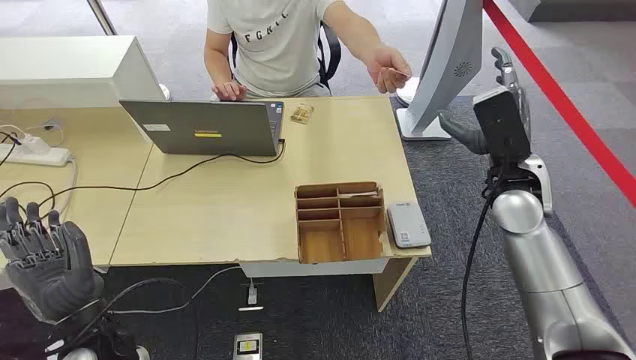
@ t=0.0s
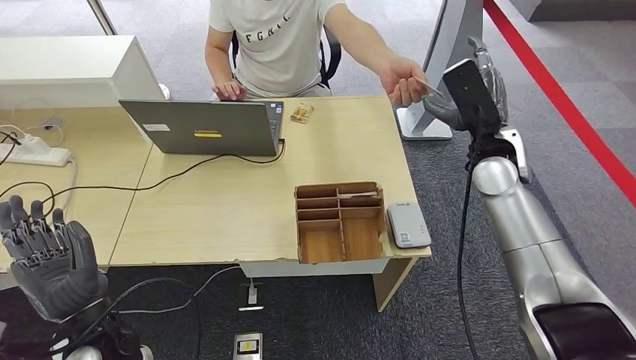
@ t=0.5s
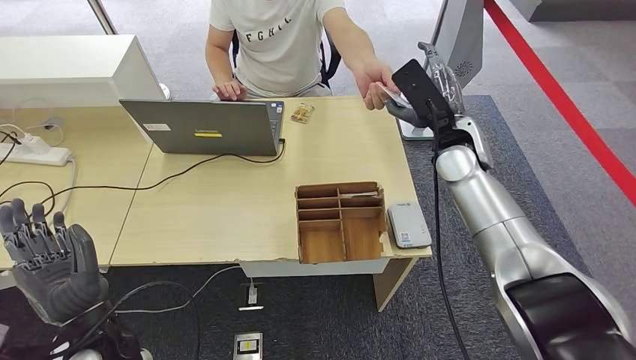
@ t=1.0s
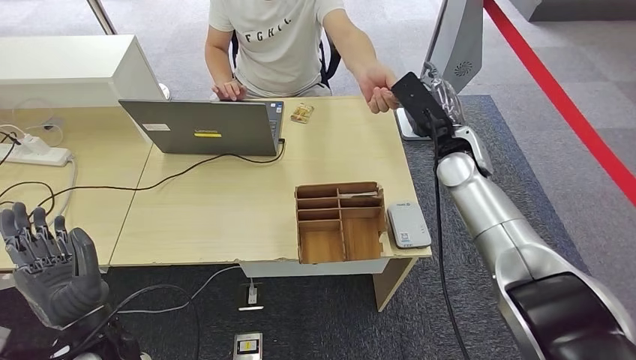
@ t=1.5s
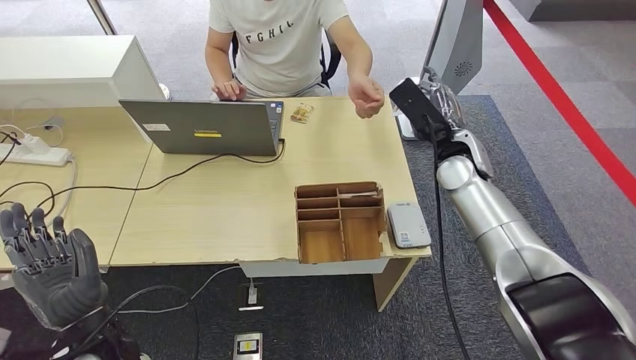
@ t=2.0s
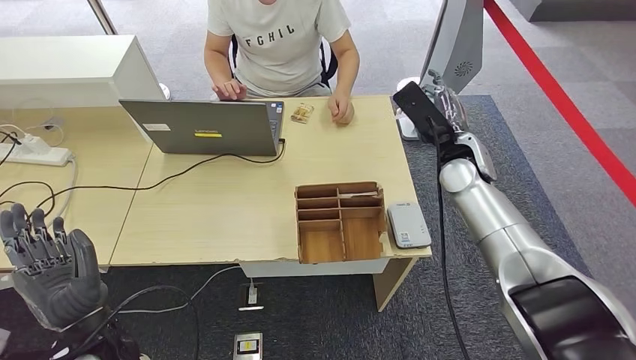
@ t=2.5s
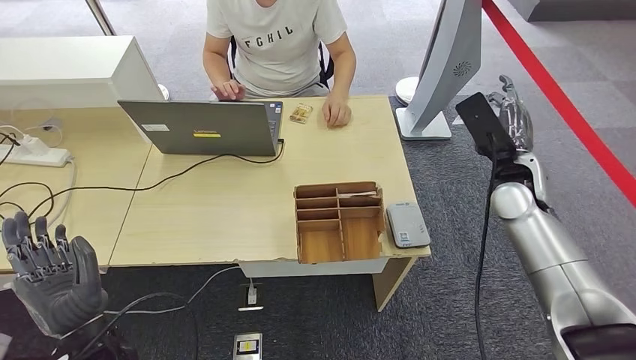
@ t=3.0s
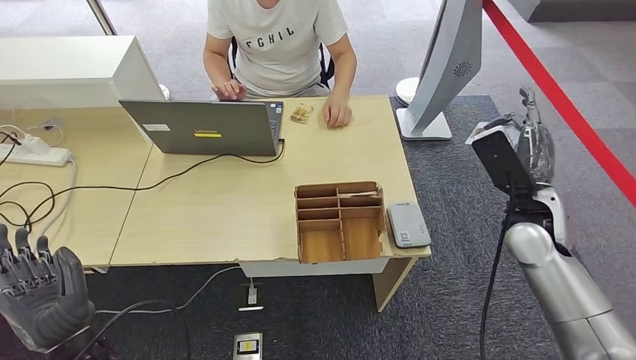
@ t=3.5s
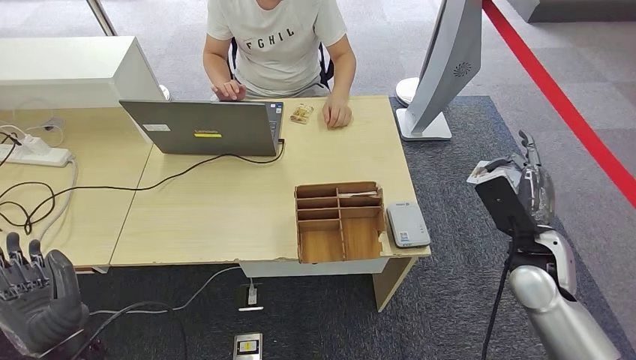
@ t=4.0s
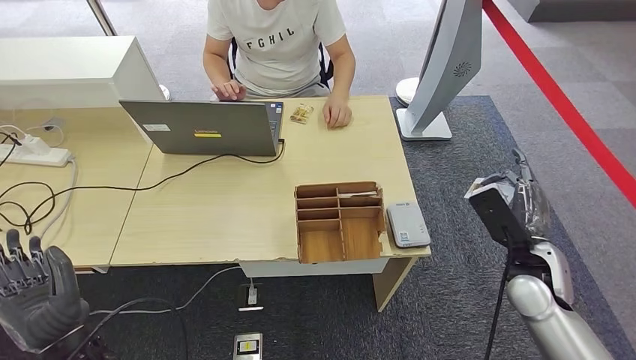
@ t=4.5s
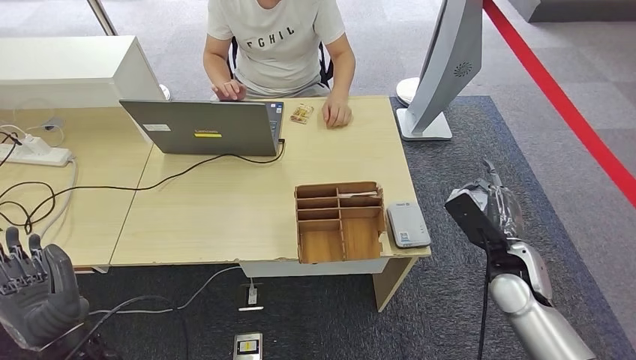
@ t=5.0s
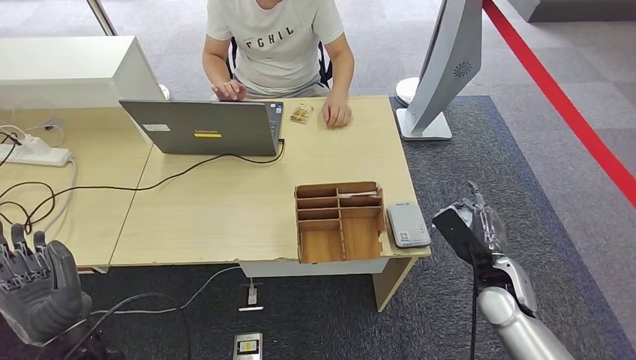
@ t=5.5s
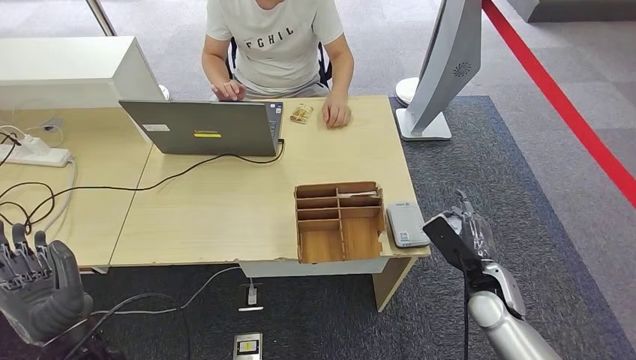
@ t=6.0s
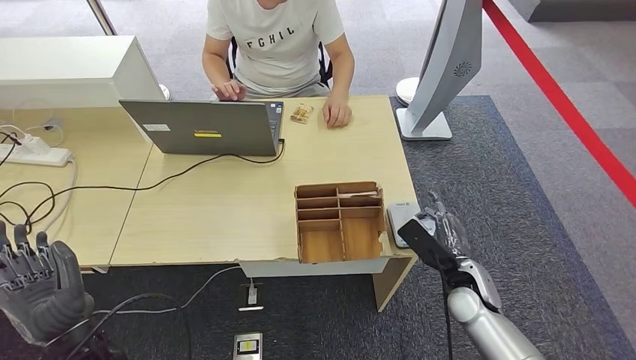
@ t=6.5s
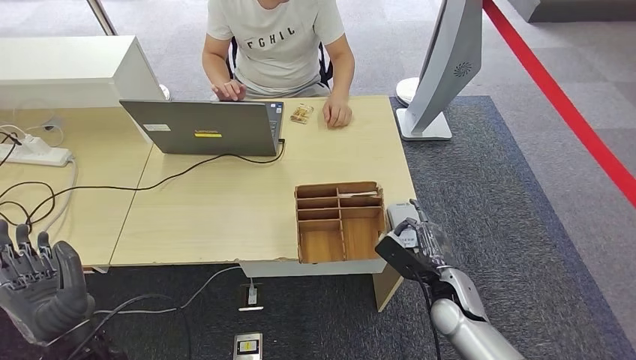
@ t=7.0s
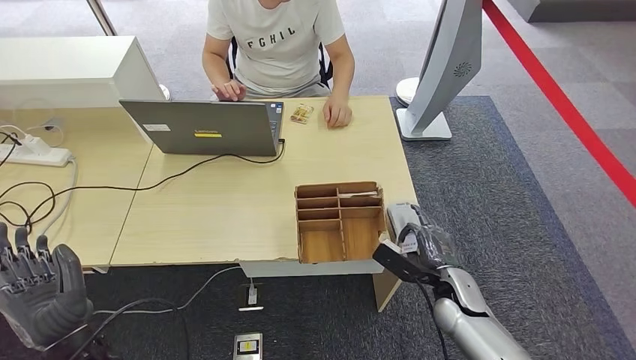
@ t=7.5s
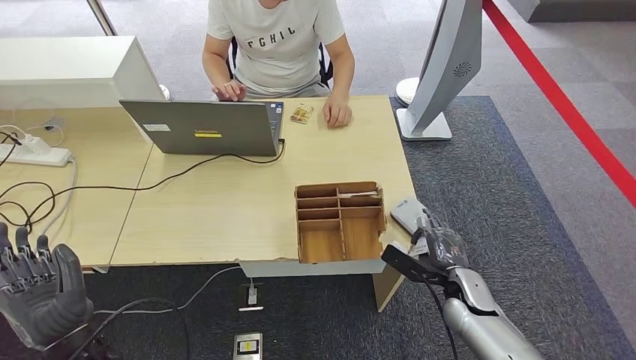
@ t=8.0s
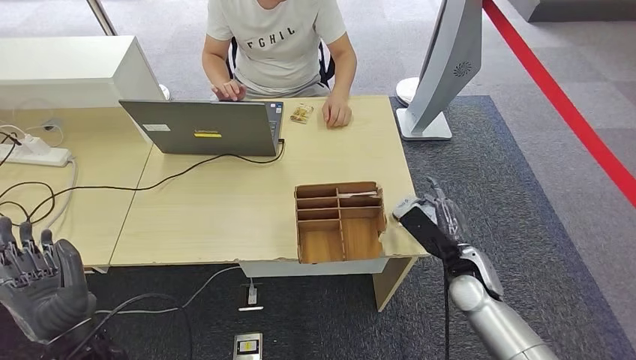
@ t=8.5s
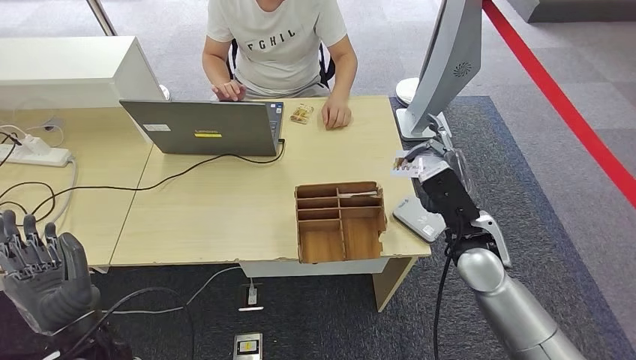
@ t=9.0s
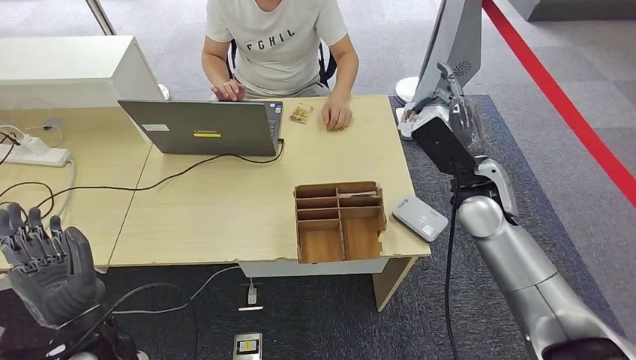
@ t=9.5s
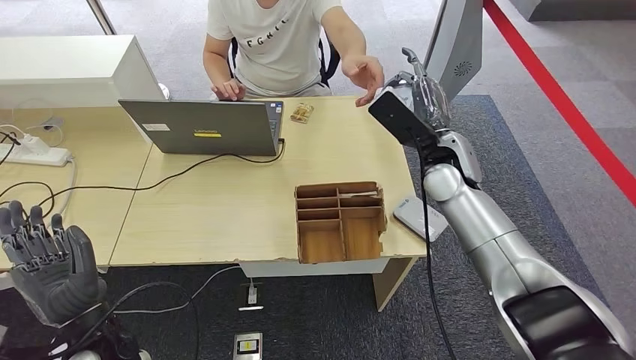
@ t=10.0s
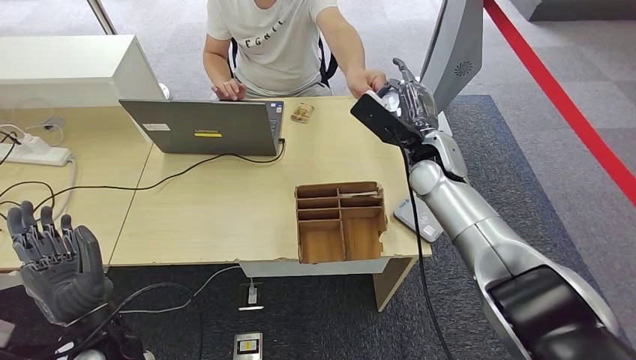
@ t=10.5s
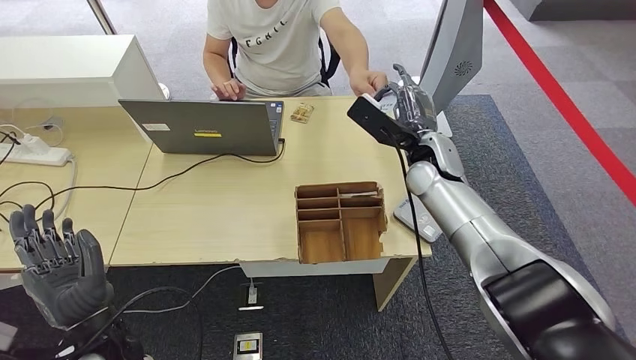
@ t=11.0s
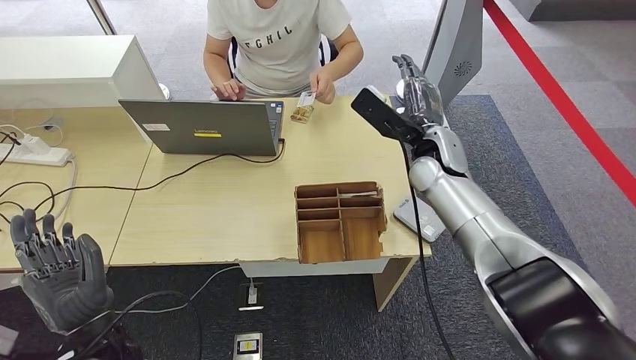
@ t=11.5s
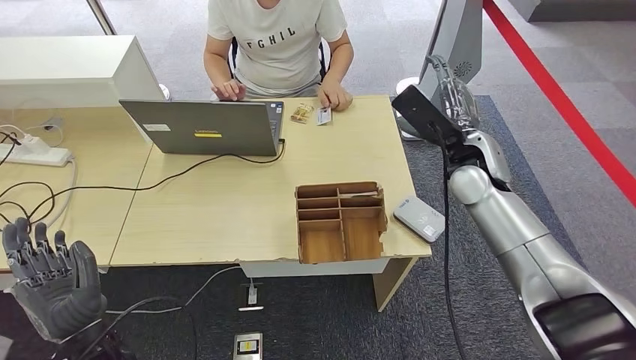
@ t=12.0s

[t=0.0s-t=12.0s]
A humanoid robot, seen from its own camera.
Step, t=0.0s to t=2.0s: Take the ID card from the person's hand.
Step, t=2.5s to t=9.0s: Place the ID card on the card reader.
t=2.0s to t=4.0s: The right hand travels backward, to the right and downward by approximately 20 cm.
t=4.0s to t=6.0s: The right hand moves downward, some 10 cm.
t=6.0s to t=8.0s: The right hand moves roughly 5 cm.
t=8.0s to t=10.0s: The right hand travels upward and forward by some 25 cm.
t=10.0s to t=12.0s: There are only small adjustments of the hands.

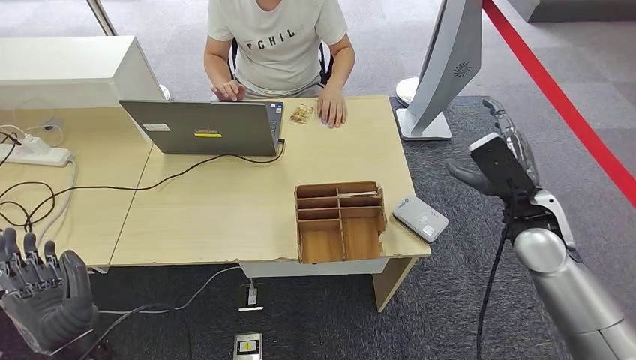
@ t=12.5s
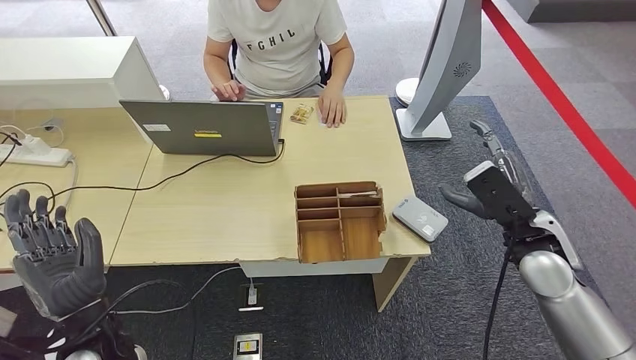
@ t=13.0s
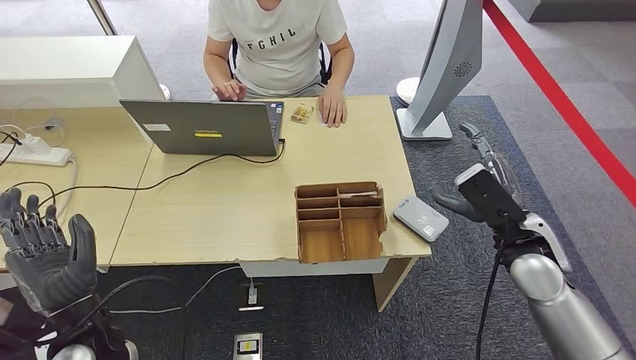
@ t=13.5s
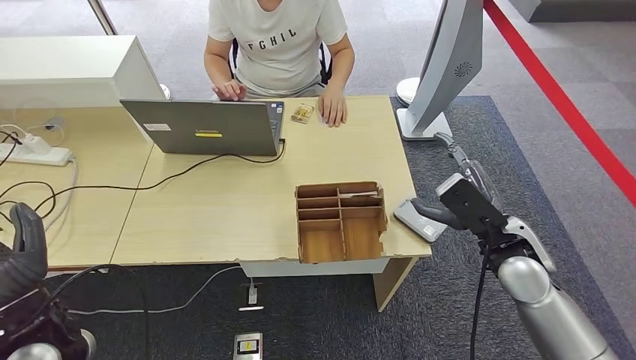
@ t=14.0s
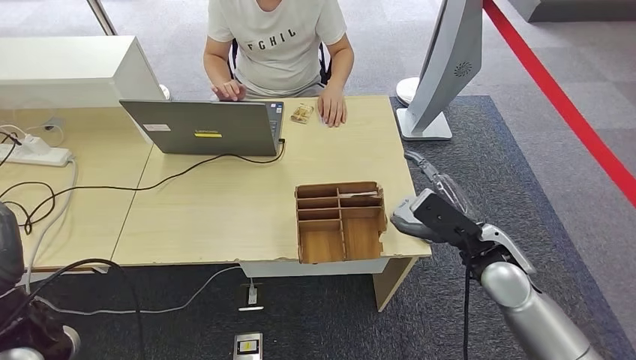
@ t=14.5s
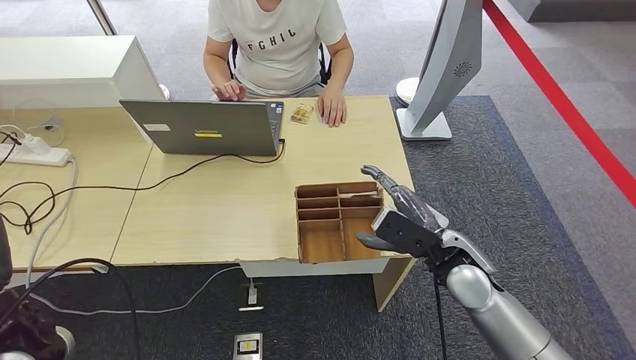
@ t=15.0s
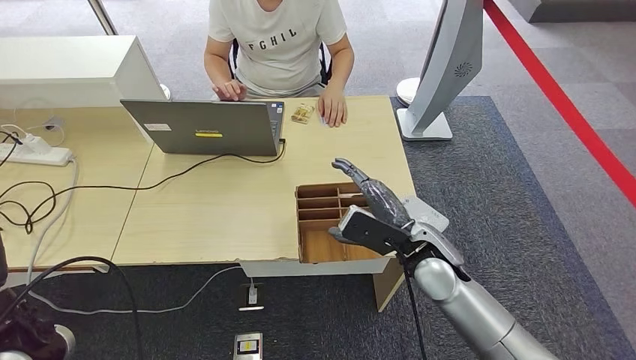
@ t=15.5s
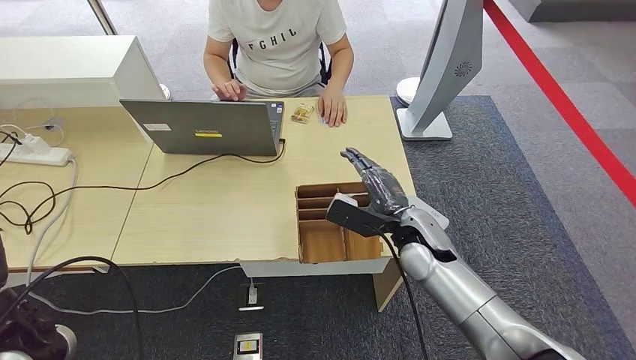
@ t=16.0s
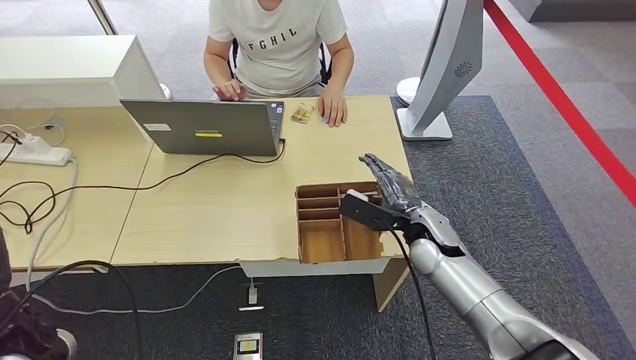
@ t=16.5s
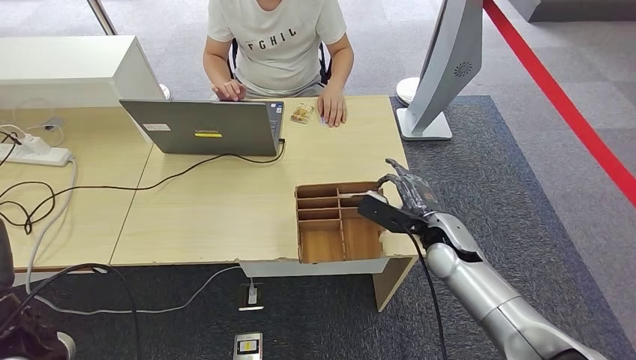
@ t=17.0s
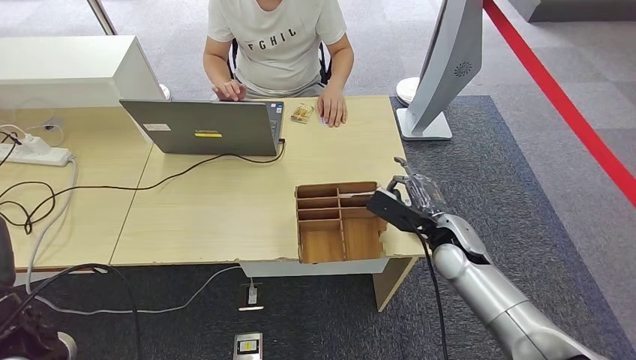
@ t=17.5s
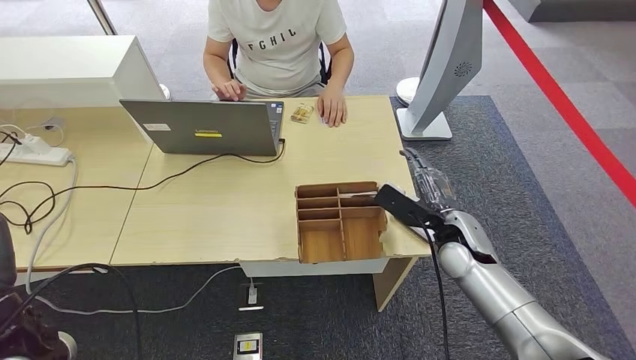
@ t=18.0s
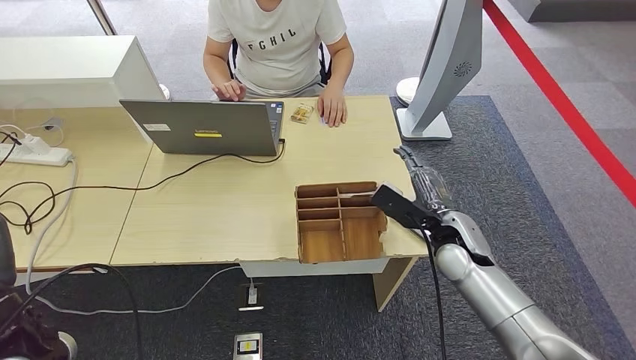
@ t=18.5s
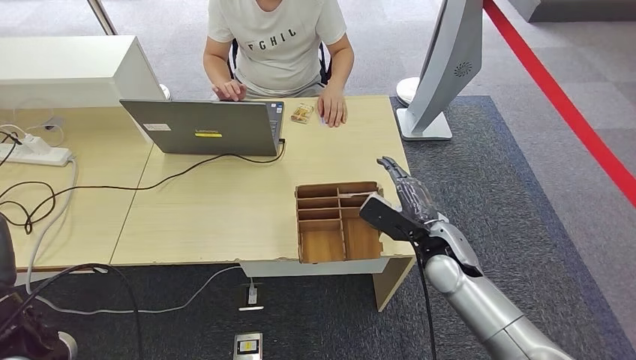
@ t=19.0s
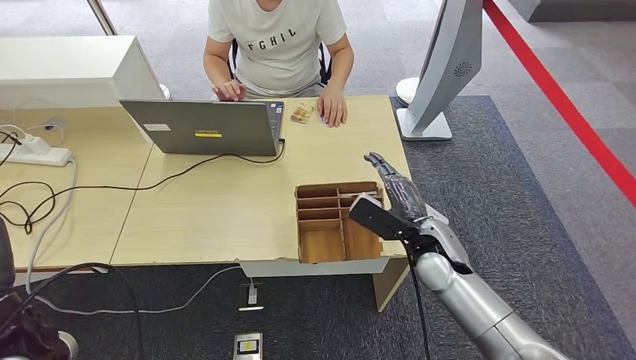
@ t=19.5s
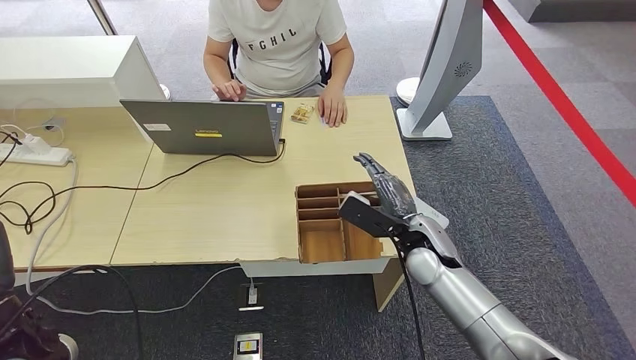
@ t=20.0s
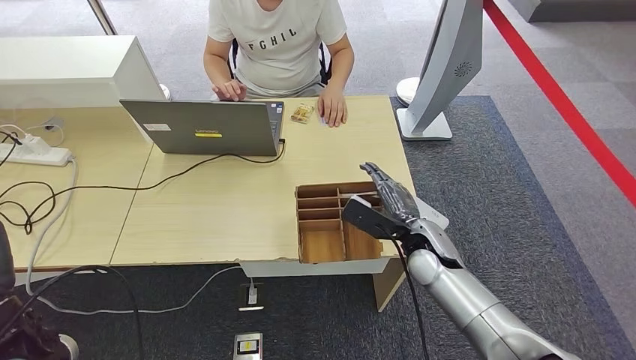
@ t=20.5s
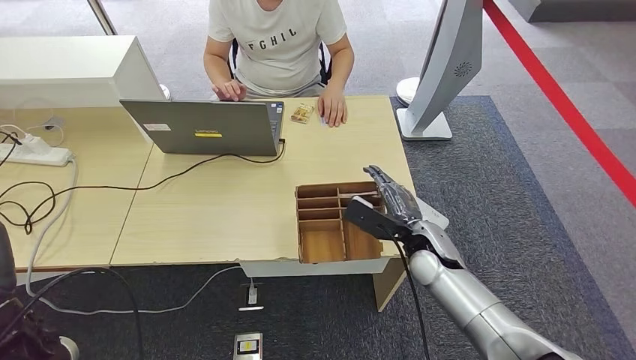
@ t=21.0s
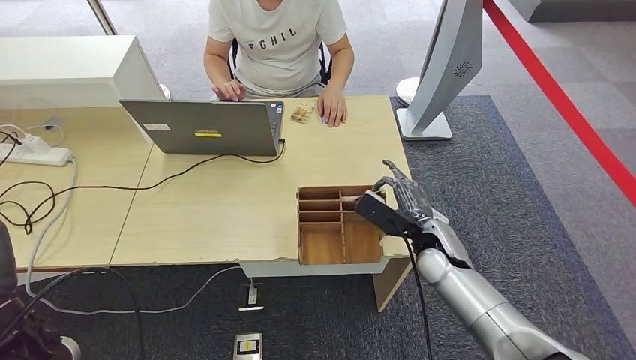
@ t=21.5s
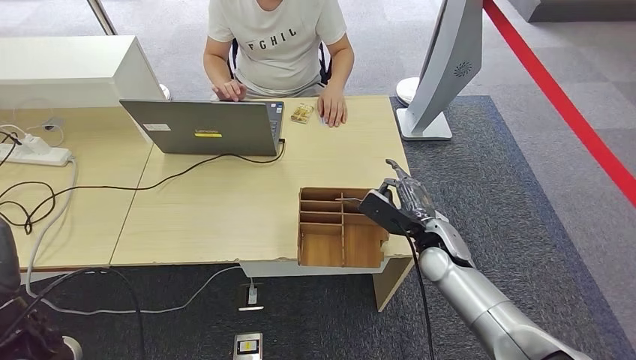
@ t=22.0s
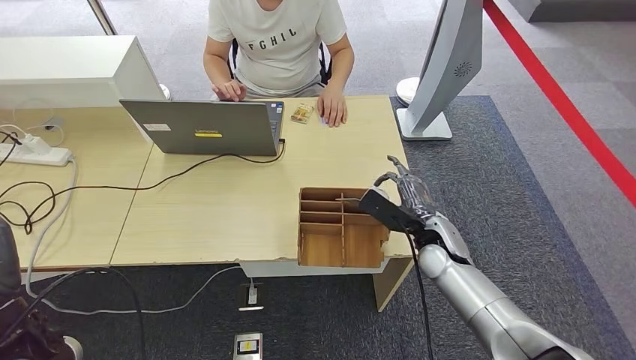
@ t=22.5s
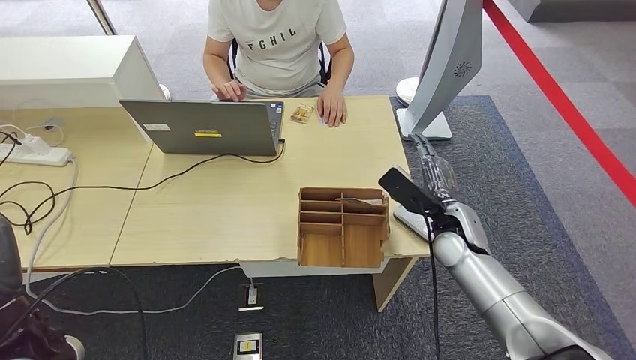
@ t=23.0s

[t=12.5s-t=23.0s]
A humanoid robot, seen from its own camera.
t=12.5s to t=14.5s: The left hand moves upward and to the left, about 10 cm, while the right hand moves to the left, about 5 cm.
t=14.5s to t=16.5s: The right hand goes roughly 10 cm forward, to the left and downward.
t=16.5s to t=21.0s: There are only small adjustments of the hands.
t=21.0s to t=23.0s: The right hand shifts by about 5 cm.
